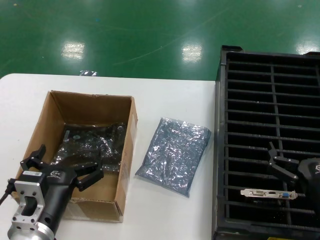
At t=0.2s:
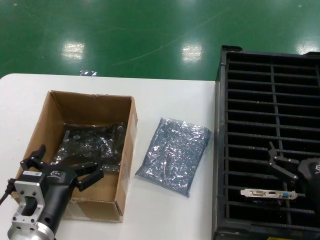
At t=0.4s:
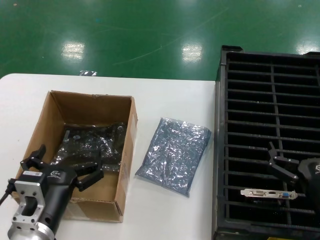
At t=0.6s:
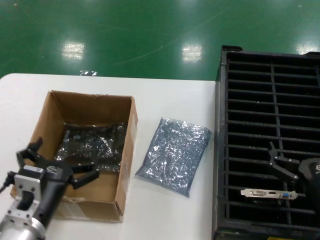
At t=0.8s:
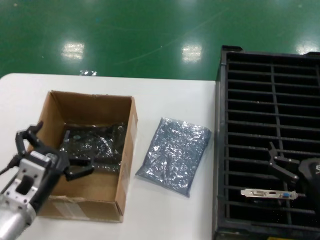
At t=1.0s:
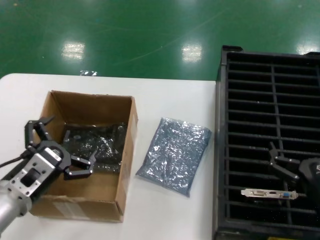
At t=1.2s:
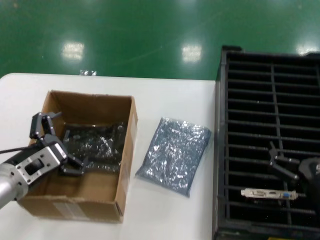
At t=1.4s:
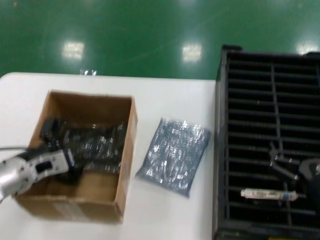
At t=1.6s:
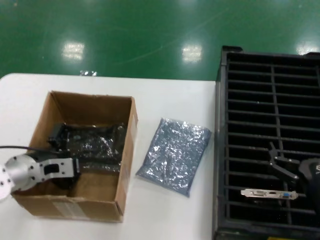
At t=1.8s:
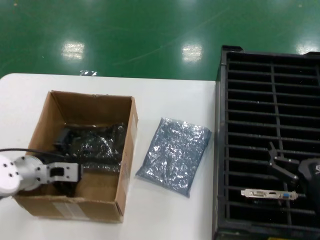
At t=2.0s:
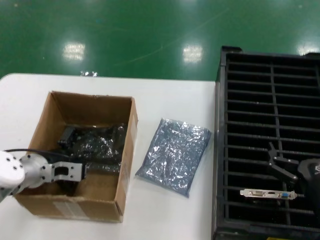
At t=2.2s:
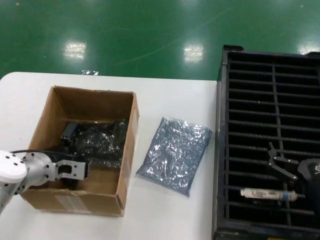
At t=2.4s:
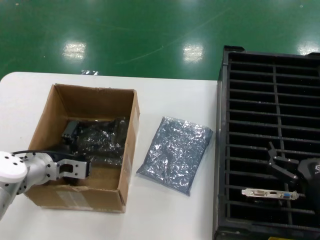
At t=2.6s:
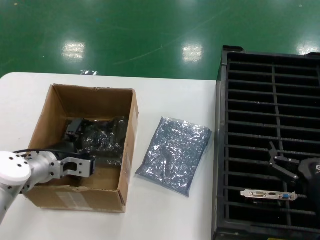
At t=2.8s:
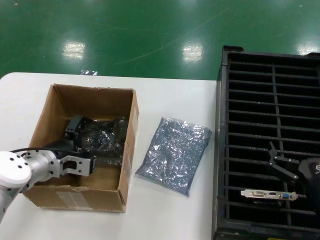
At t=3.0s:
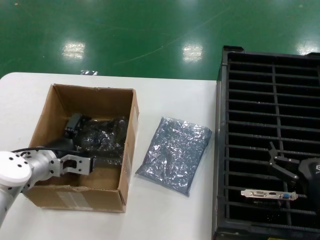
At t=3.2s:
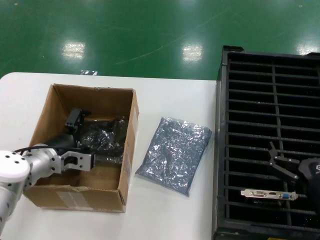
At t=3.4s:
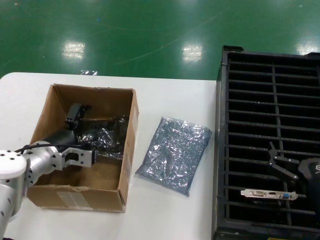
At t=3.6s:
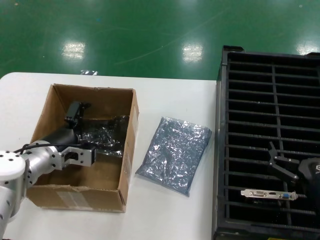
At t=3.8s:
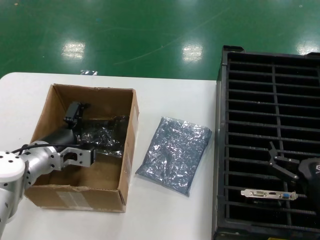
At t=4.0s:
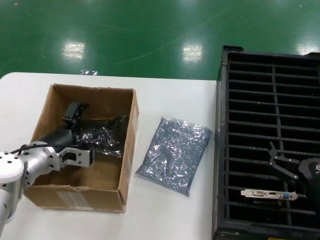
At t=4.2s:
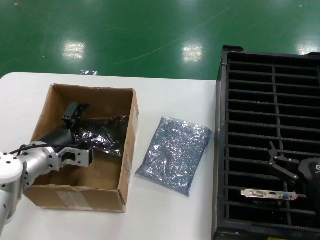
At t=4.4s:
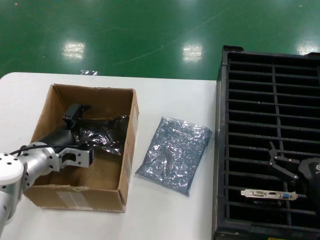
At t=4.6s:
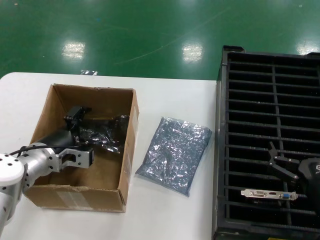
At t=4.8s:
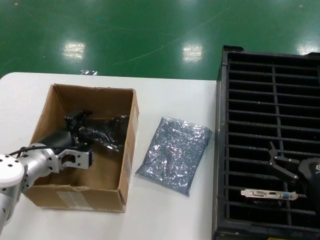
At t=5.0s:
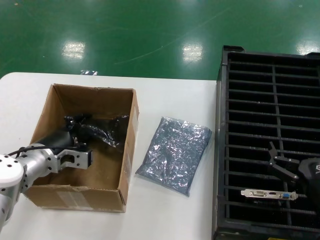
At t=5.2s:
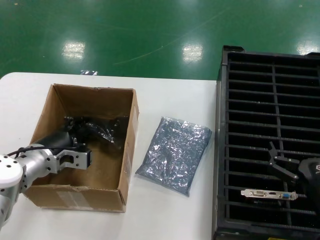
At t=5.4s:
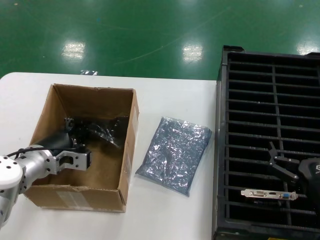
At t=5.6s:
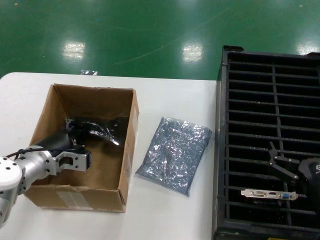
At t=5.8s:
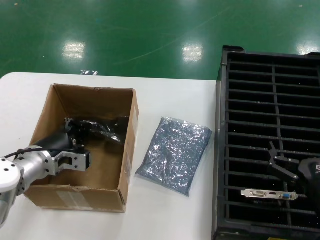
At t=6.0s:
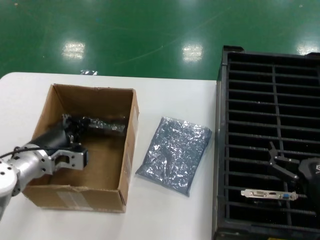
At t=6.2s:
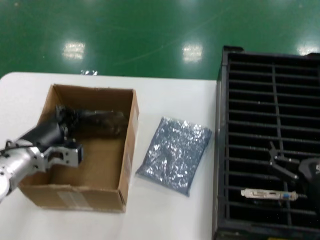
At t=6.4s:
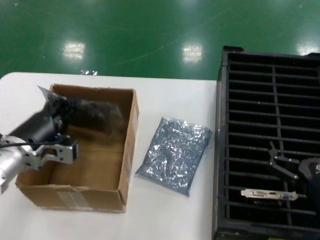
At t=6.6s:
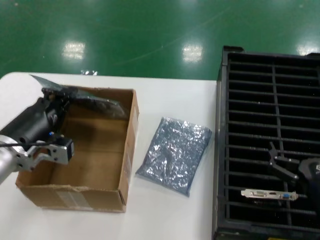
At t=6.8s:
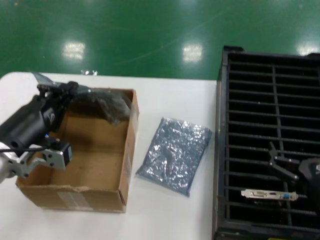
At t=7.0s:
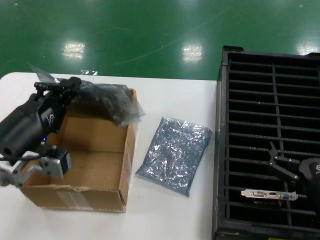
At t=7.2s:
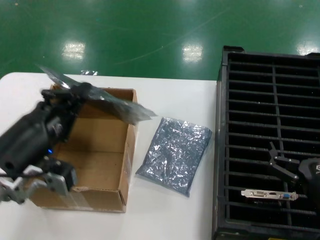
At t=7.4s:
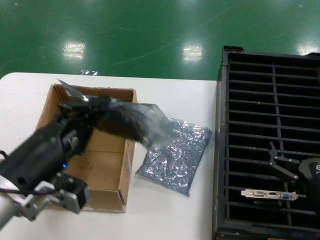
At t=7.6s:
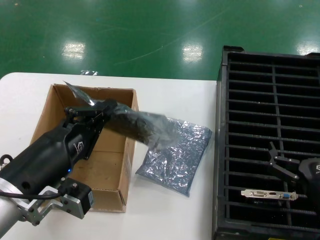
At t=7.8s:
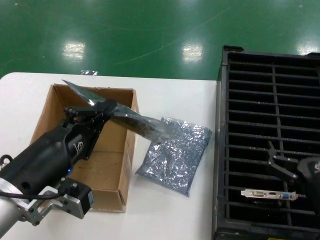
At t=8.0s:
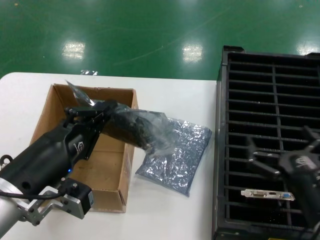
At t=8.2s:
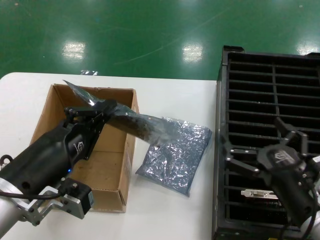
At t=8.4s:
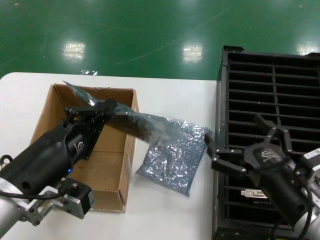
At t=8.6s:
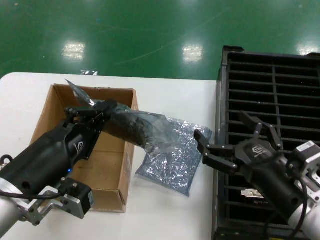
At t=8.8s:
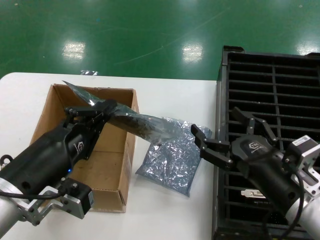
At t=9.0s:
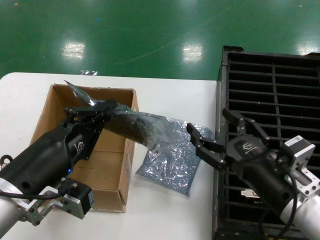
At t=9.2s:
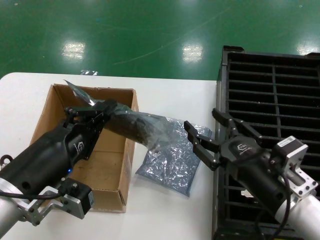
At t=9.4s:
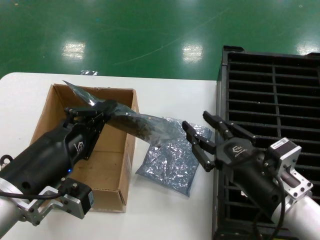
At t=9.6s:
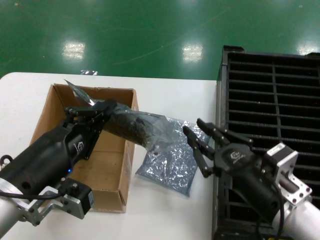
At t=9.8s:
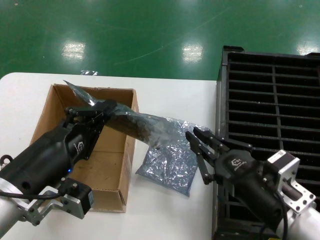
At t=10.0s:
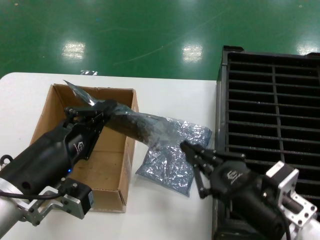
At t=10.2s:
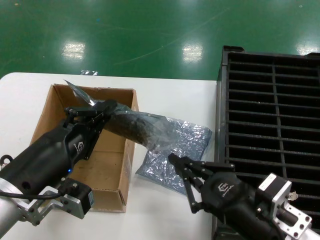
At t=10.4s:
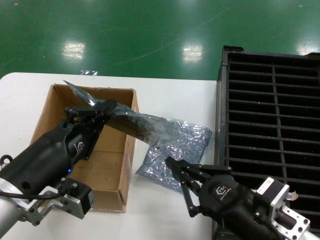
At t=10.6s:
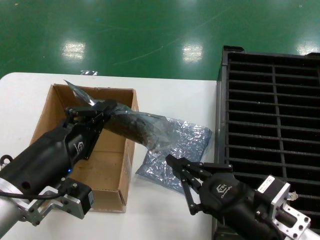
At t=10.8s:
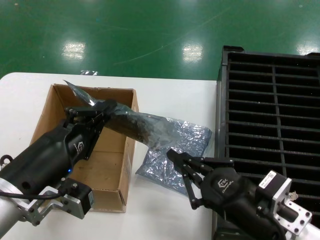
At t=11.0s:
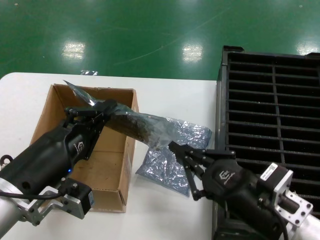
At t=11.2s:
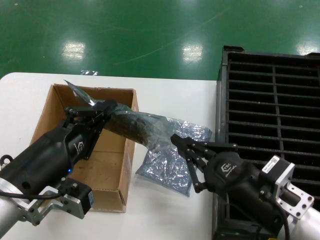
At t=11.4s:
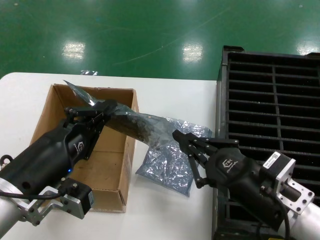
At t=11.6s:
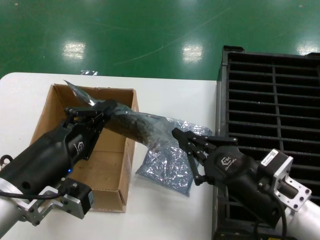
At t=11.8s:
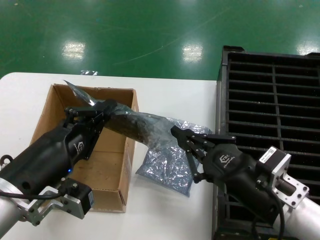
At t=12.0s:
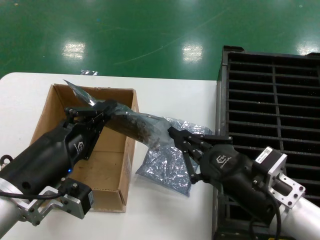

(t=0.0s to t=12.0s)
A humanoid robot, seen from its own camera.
Task of the whole recording: take out graphics card from box remove packaging put into black container.
Step, t=0.0s - t=5.6s: Grasp the bag.
Step, t=5.8s - t=7.6s: Lift the bag.
t=0.0s - t=1.6s: The left hand goes about 20 cm forward and to the left.
t=1.6s - t=6.0s: The hands move only a little.
t=6.0s - t=7.6s: The left hand heads backward and upward, covering roughly 20 cm.
t=7.6s - t=9.0s: The right hand travels to the left and upward by about 10 cm.
t=9.0s - t=10.4s: The right hand travels backward by approximately 5 cm.
t=10.4s - t=12.0s: The hands stay close to where they were, moving slightly.

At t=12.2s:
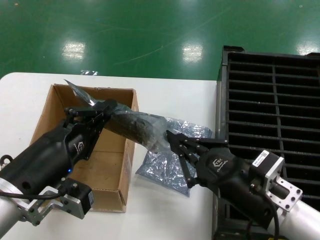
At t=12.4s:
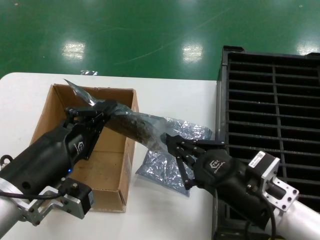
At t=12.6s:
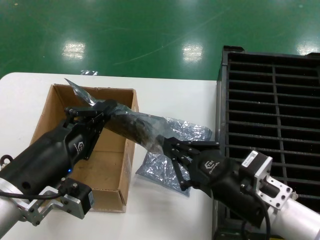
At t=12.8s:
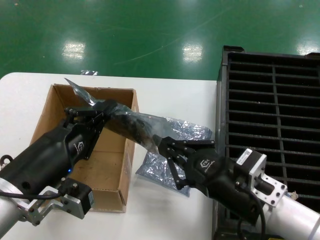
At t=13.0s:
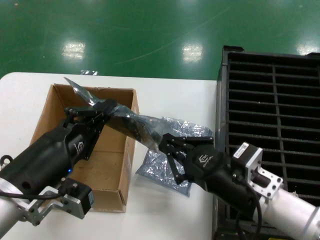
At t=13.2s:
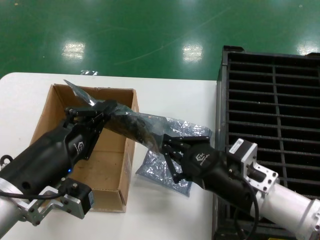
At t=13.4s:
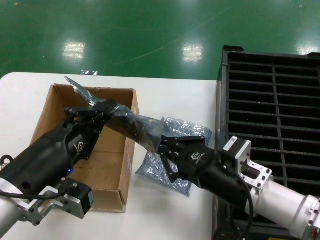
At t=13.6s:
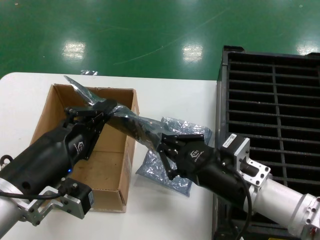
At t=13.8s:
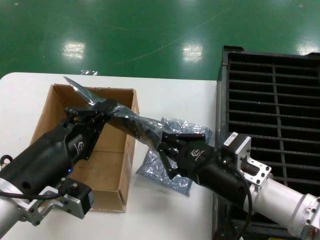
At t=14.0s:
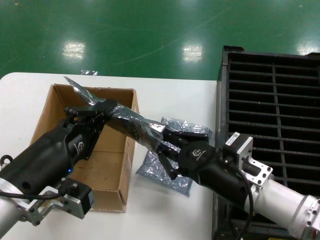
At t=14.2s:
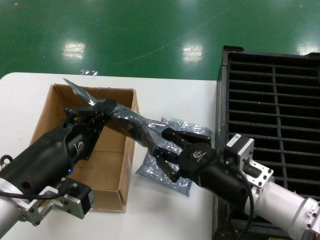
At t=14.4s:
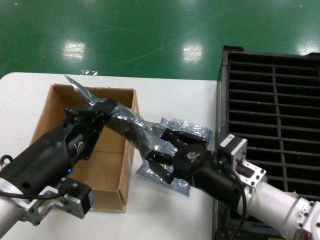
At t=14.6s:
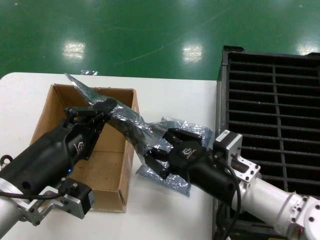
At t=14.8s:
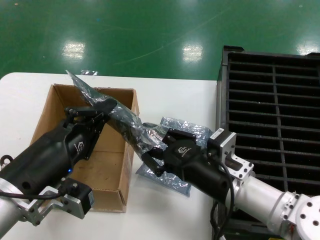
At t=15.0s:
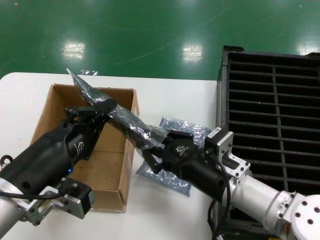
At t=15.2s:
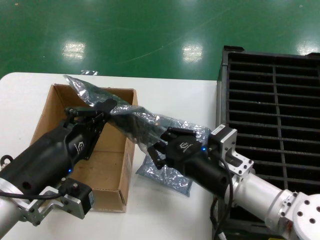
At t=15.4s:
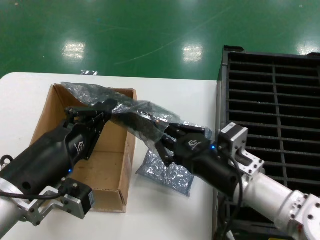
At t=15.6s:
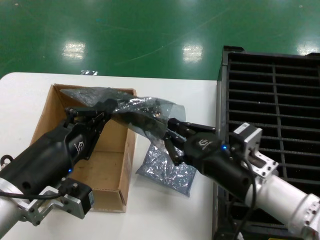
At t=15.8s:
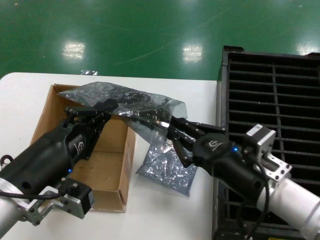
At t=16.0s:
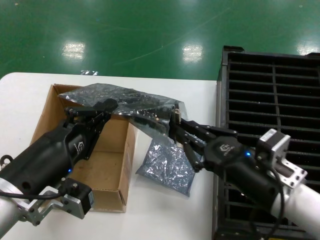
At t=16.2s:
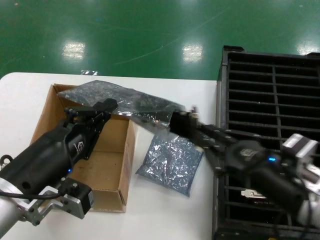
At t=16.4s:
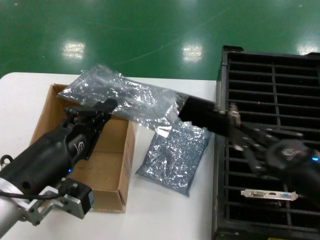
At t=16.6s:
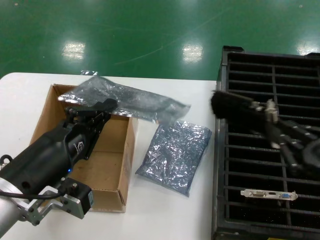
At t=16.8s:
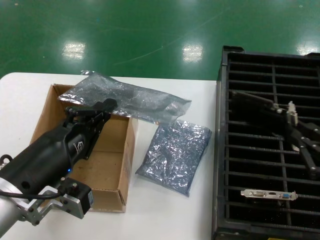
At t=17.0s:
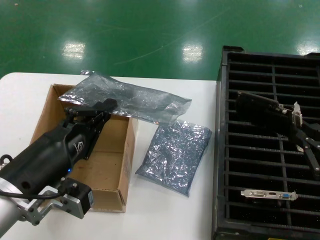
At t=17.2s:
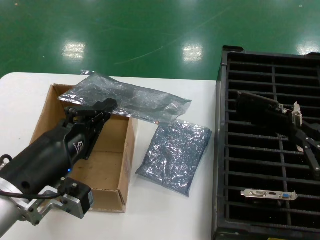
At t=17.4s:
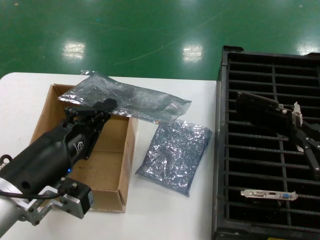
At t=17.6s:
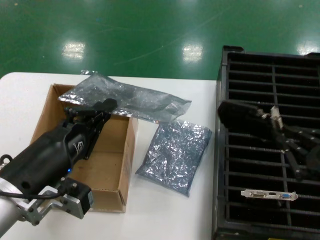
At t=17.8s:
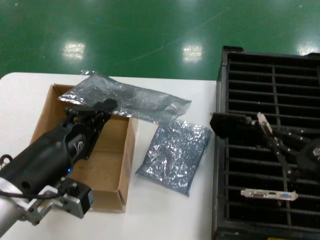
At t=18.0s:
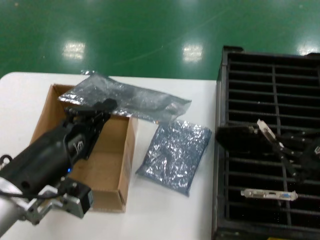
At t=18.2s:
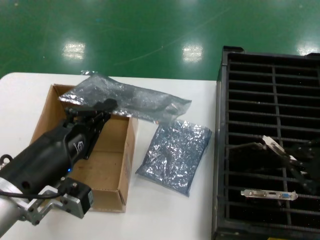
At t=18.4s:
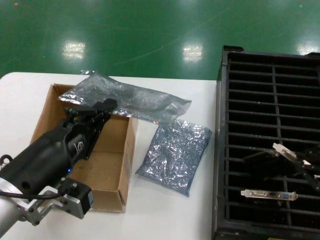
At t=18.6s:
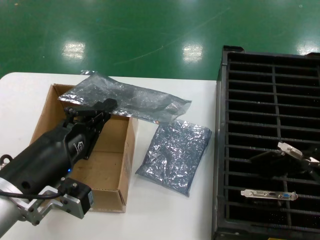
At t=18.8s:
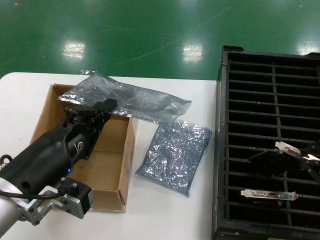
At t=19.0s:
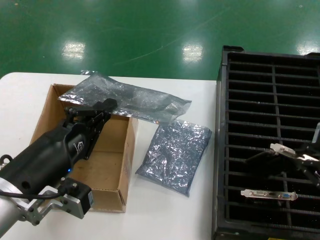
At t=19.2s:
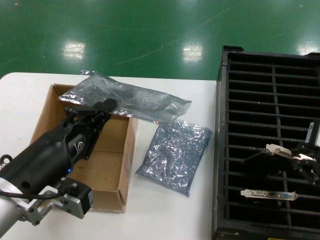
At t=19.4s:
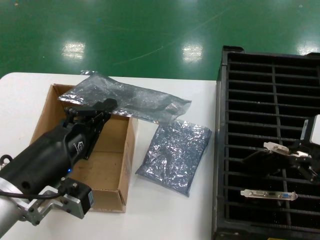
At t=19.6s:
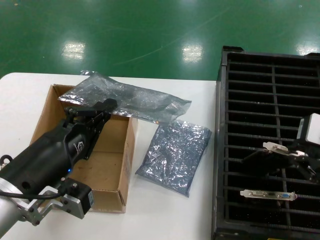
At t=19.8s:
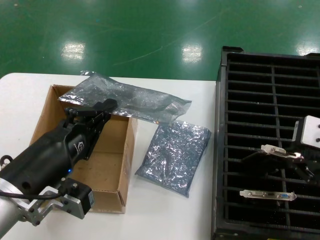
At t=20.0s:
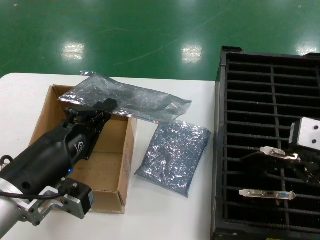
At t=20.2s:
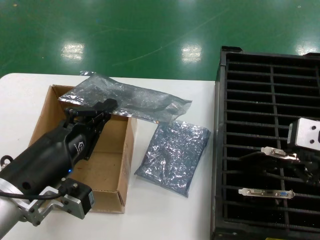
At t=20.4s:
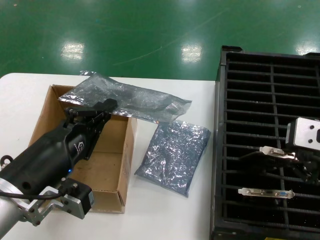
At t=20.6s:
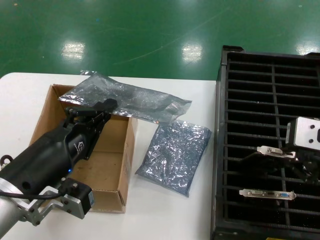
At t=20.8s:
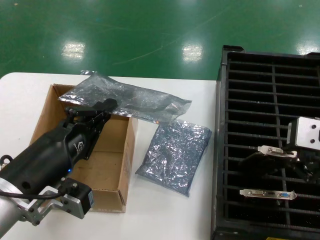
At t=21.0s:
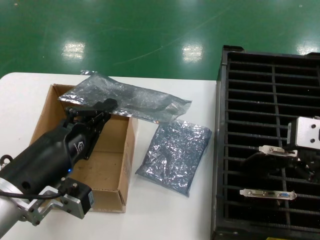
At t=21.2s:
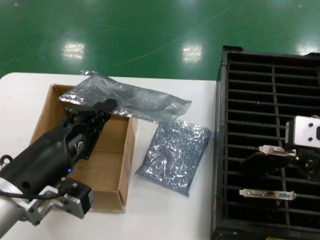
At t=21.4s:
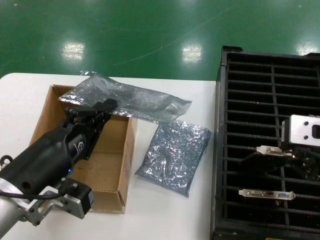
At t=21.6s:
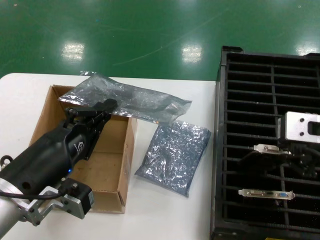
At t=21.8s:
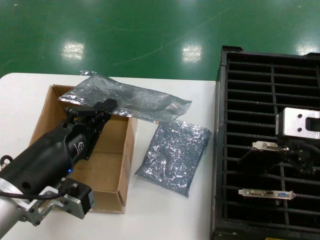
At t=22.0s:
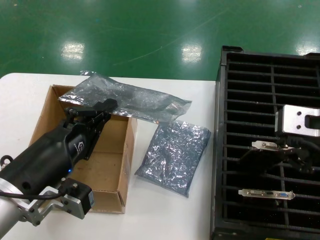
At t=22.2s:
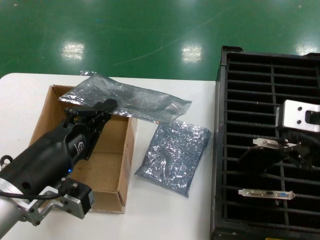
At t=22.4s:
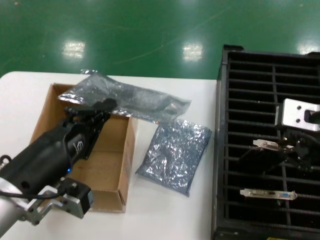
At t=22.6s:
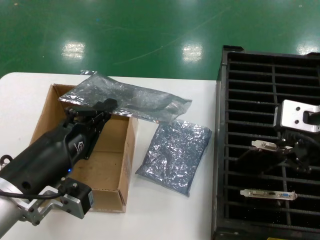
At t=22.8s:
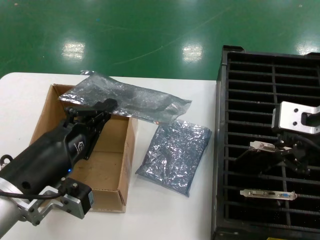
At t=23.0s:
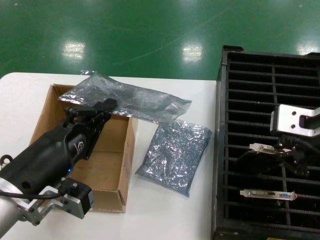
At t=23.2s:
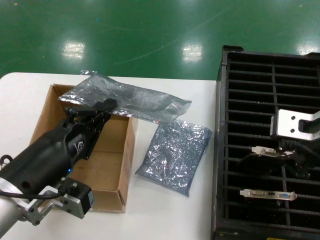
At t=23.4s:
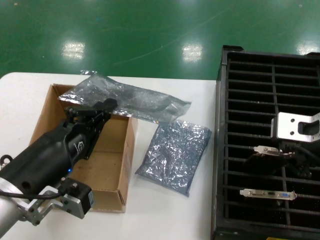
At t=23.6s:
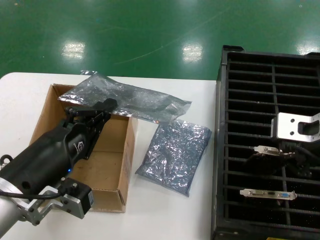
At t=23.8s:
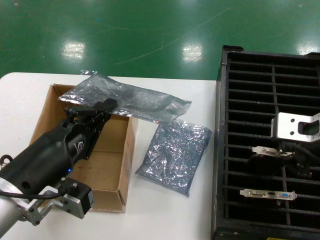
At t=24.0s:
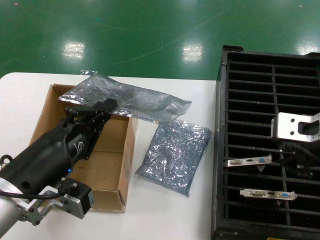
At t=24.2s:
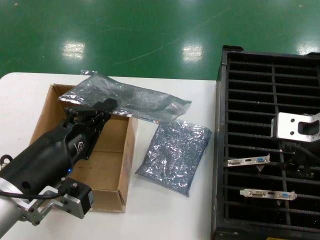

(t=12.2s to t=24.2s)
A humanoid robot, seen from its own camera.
Task of the whole recording: take out graphics card from box remove packaging put into black container.
Step, t=12.2s - t=16.4s: Take out the hard disk of the bag.
Step, t=16.6s - t=24.0s: Place the hard disk in the hard disk enclosure.
t=12.2s - t=13.8s: The right hand ends up roughly 5 cm from where it was.
t=13.8s - t=15.2s: The hands move only a little.
t=15.2s - t=16.6s: The right hand heads to the right and backward, covering roughly 20 cm.
t=16.6s - t=18.2s: The right hand travels upward by roughly 10 cm.
t=18.2s - t=19.8s: The right hand shifts by about 5 cm.
t=19.8s - t=24.2s: The hands move only a little.
